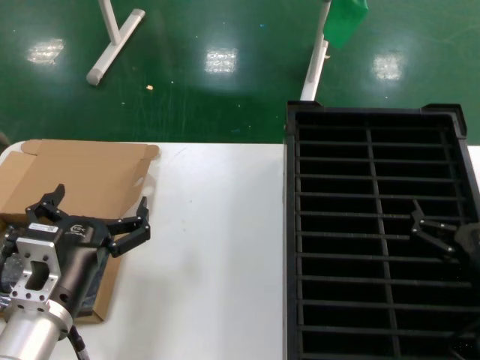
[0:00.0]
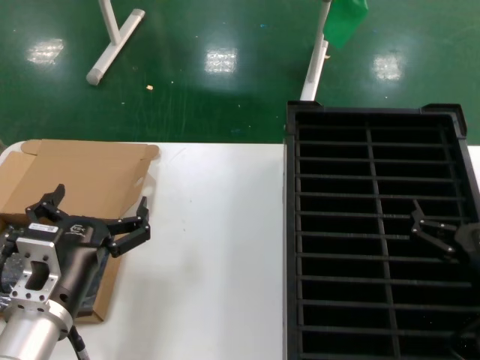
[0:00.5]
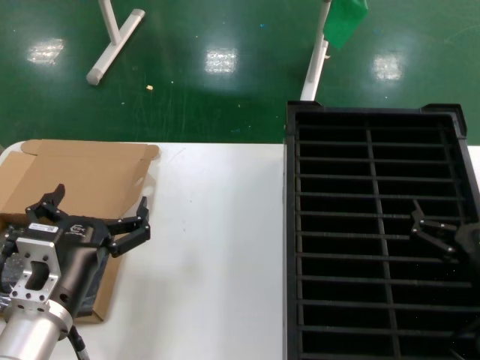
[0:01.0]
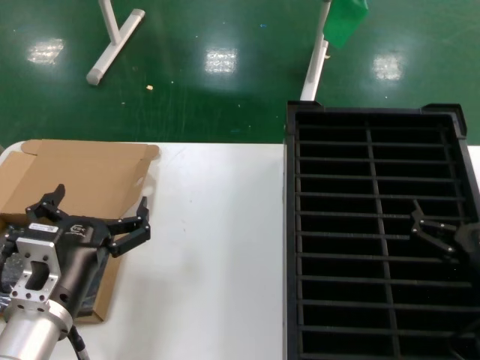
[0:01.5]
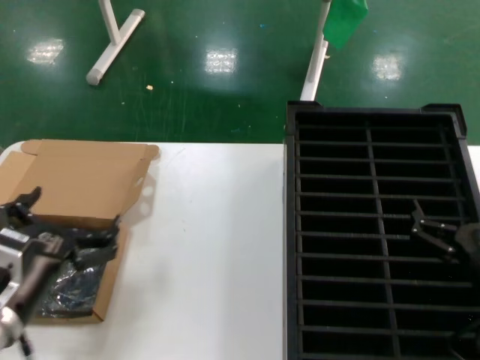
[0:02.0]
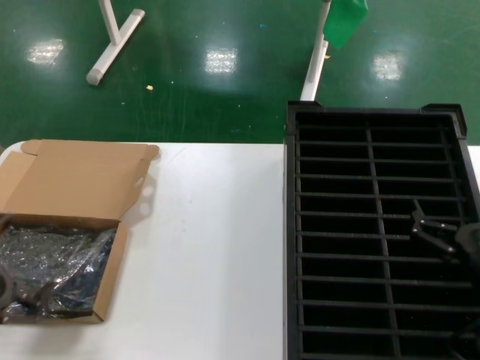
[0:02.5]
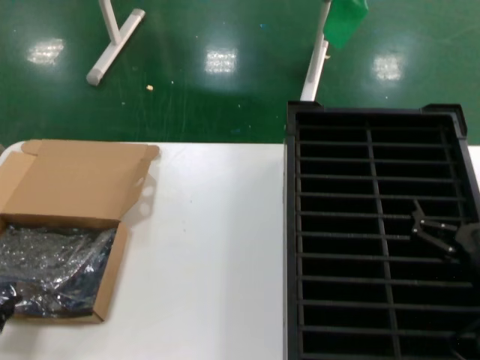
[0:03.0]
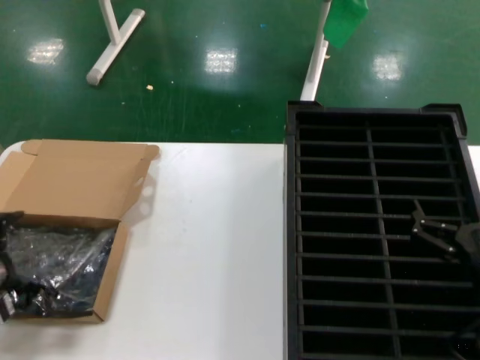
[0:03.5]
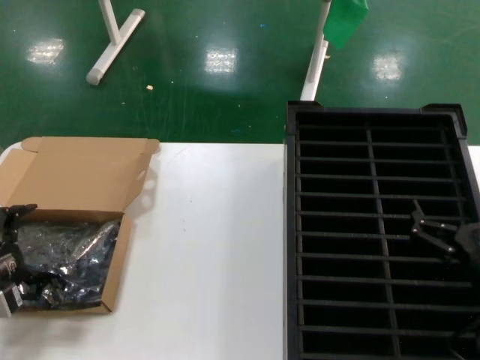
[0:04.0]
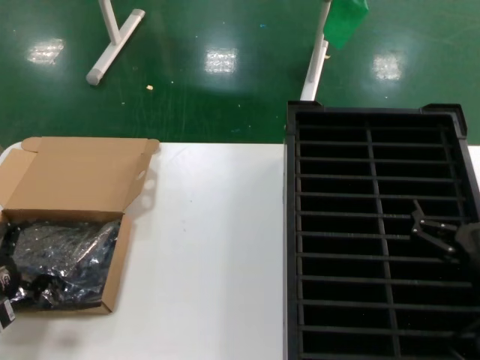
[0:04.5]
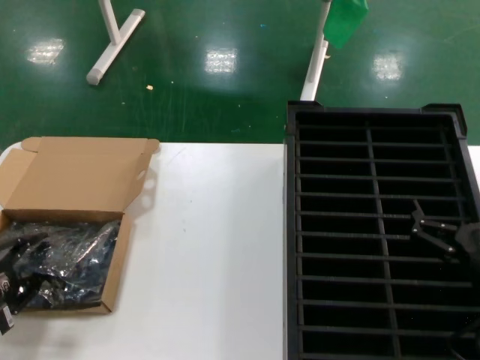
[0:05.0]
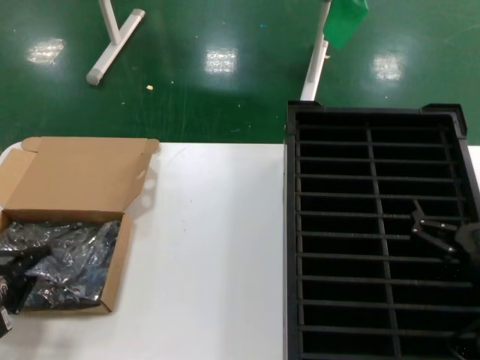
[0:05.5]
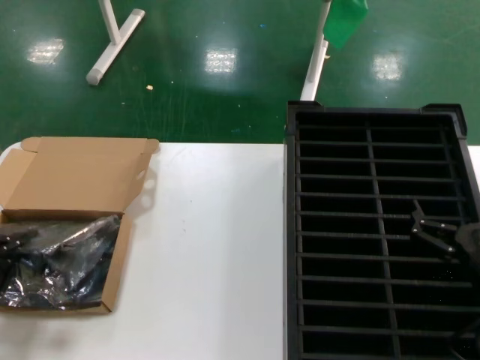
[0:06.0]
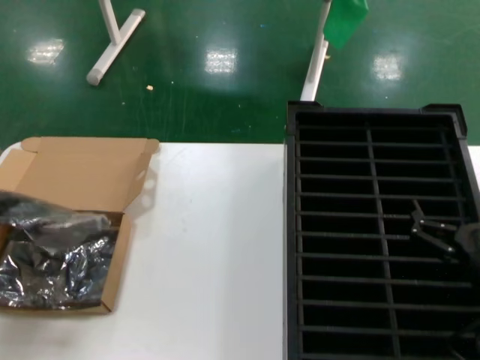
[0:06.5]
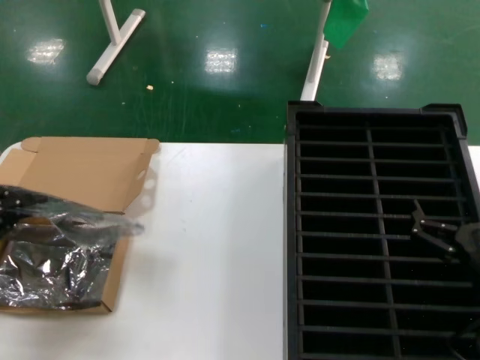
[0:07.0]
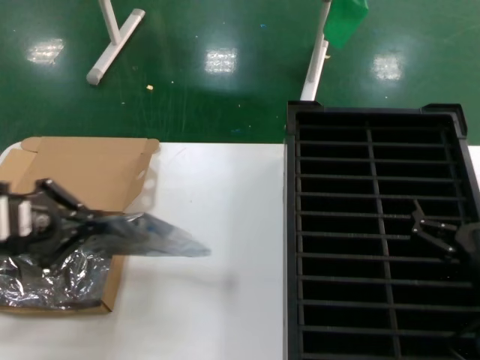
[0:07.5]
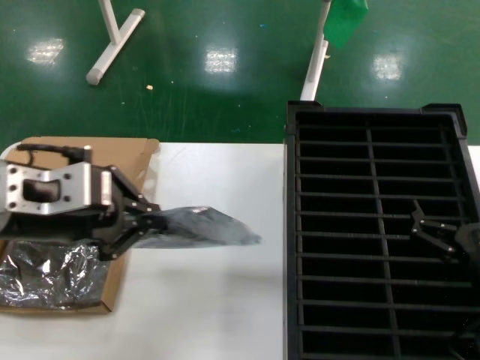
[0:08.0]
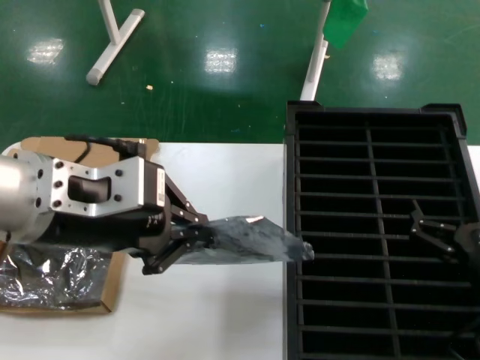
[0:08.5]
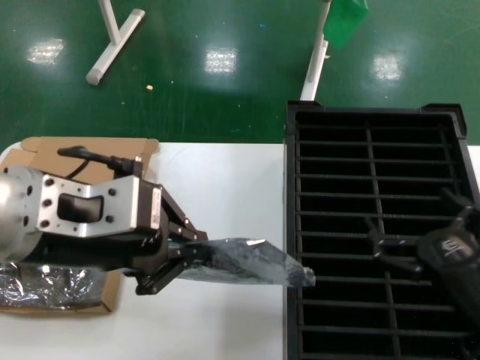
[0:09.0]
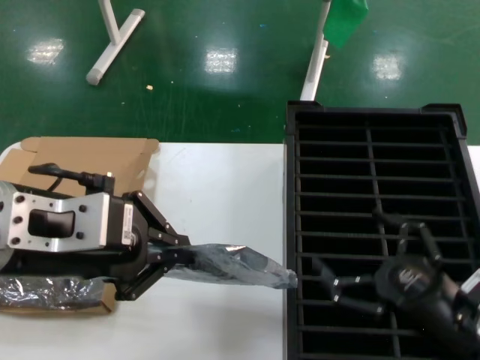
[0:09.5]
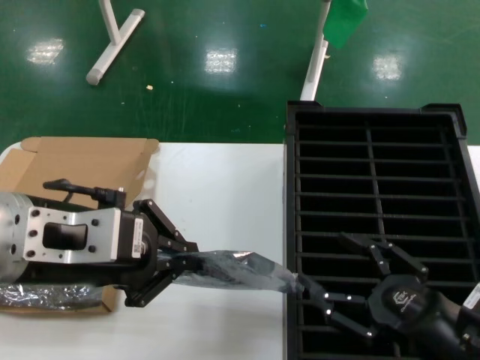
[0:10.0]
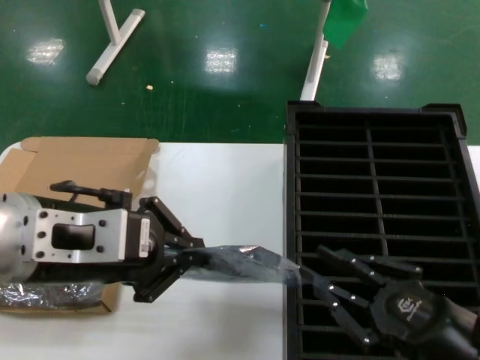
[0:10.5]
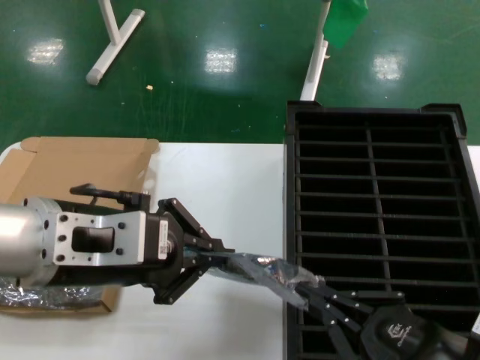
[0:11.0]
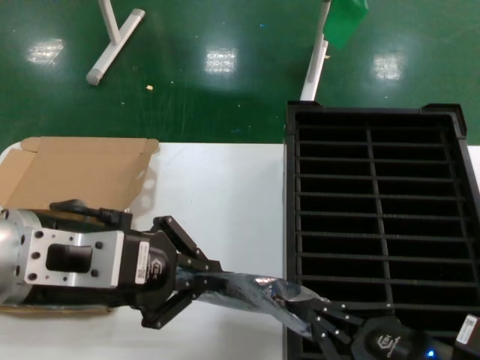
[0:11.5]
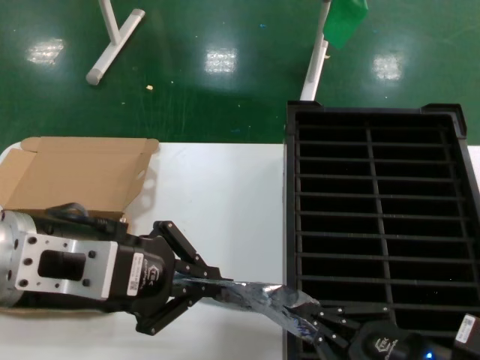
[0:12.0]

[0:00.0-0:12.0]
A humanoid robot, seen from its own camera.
Task of the whole recording: take out graphics card from box remove packaging put into black container.
Step, 0:00.0 to 0:05.0: Grasp the bag.
Step, 0:05.5 to 0:09.0: Lift the bag.
0:00.0 to 0:02.0: The left hand is displaced to the left by roughly 5 cm.
0:02.0 to 0:04.0: The left hand is displaced to the left and forward by some 15 cm.
0:04.0 to 0:06.0: There are only small adjustments of the hands.
0:06.0 to 0:08.0: The left hand moves upward and to the right, about 30 cm.
0:08.0 to 0:10.0: The left hand moves roughly 5 cm.
0:10.0 to 0:12.0: The hands stay close to where they were, moving slightly.

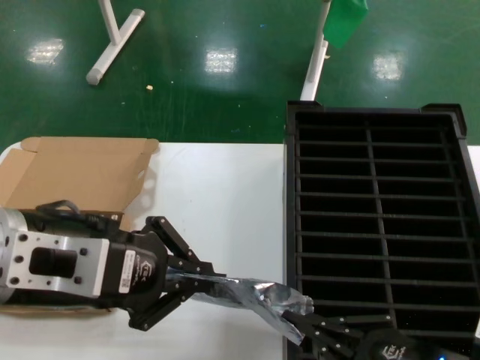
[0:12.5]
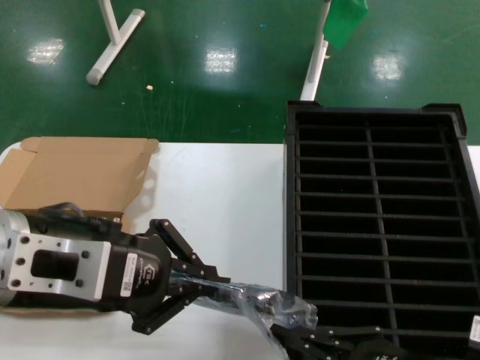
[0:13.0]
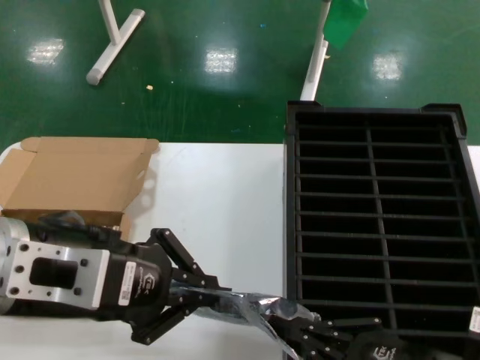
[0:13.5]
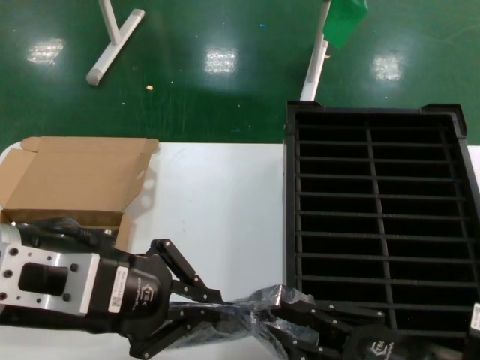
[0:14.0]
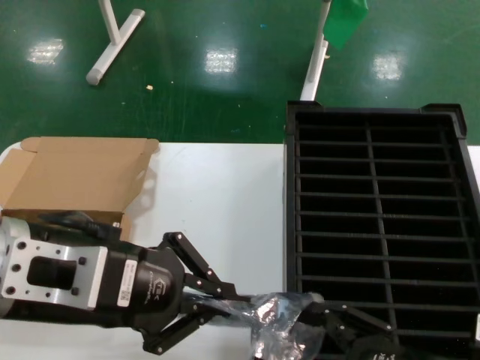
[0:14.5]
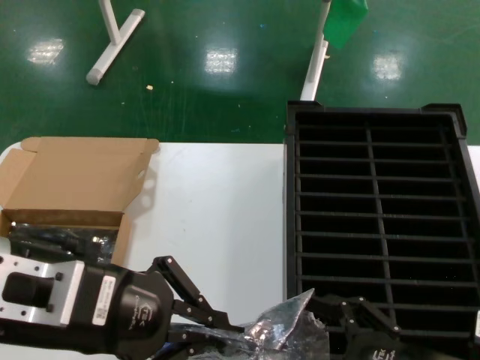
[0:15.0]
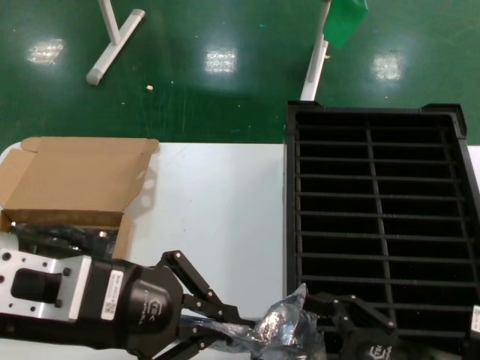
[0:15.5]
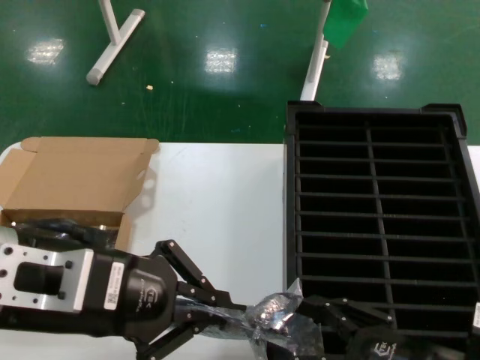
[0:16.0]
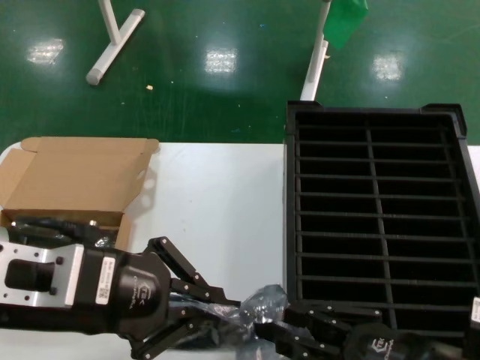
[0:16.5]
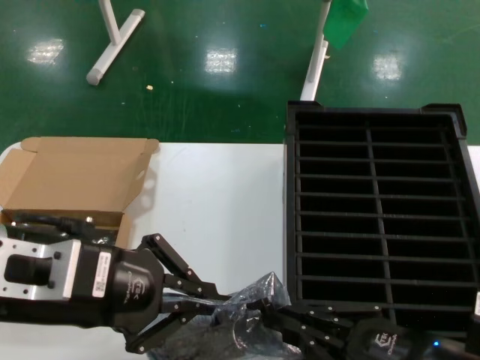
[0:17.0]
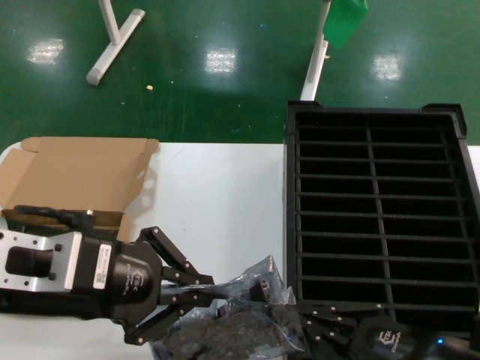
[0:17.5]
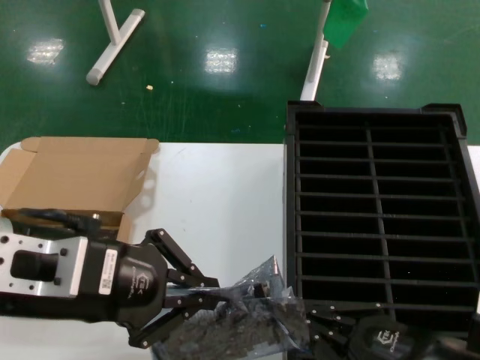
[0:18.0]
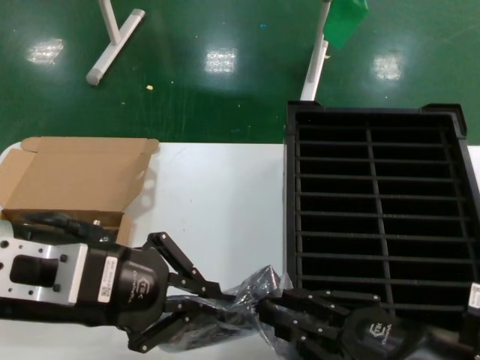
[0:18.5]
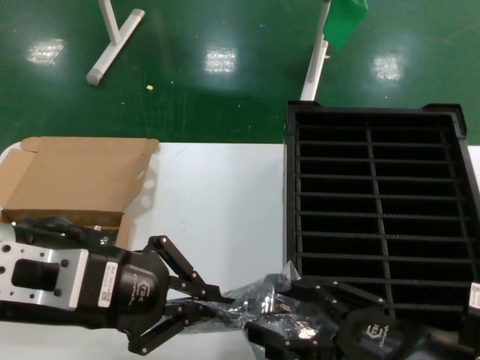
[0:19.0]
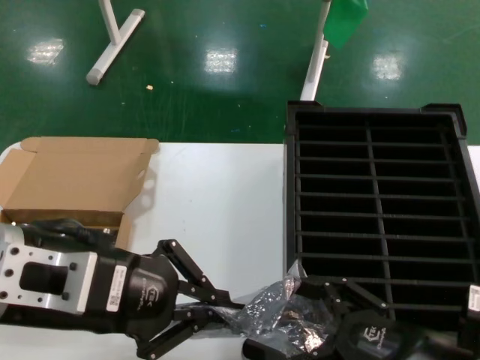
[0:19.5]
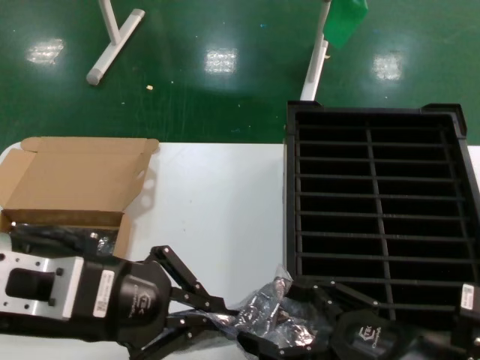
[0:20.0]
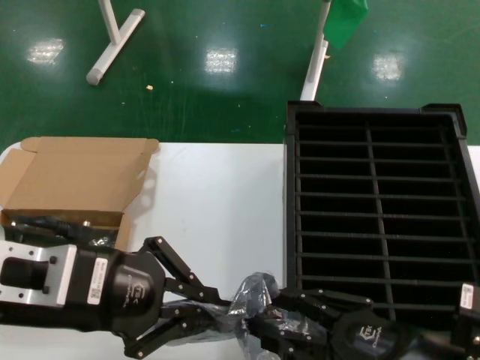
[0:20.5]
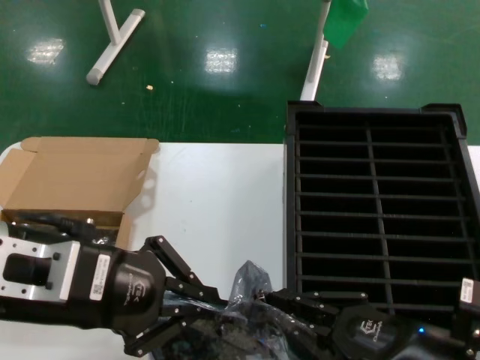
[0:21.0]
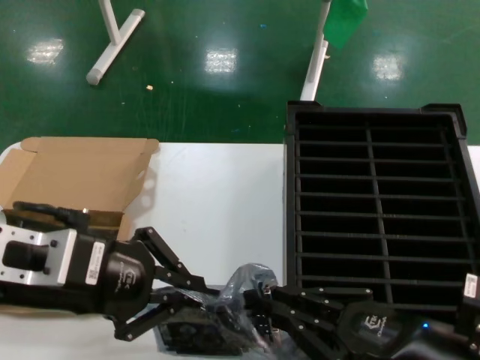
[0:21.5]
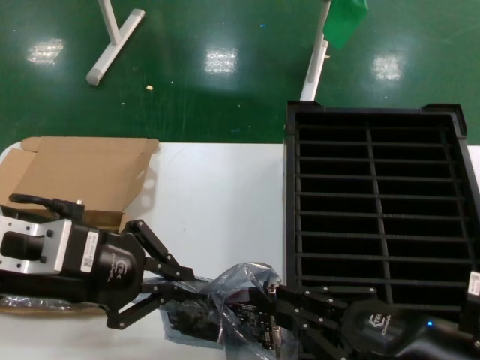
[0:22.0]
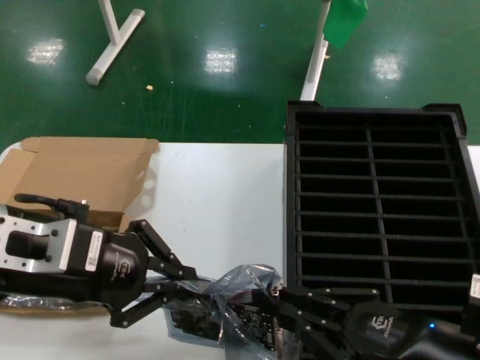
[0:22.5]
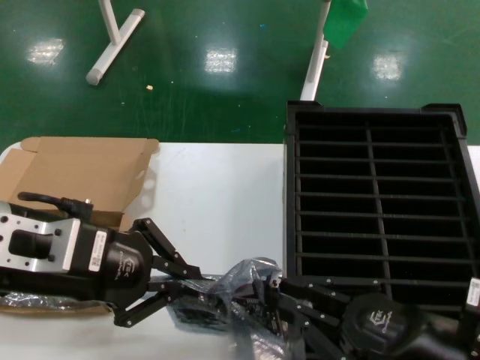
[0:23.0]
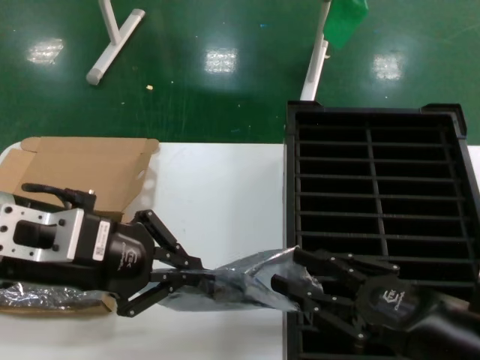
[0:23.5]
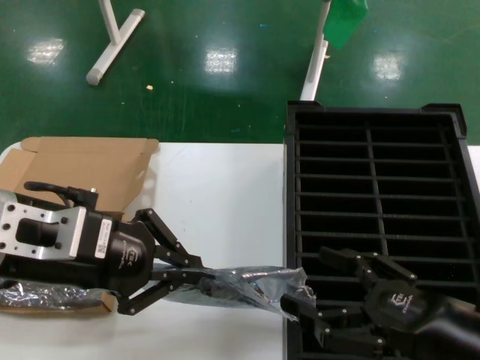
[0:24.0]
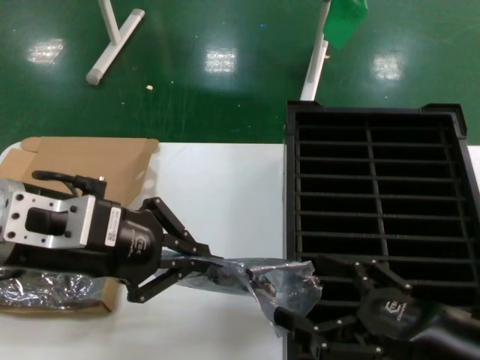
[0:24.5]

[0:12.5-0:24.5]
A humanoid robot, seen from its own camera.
Task of the whole recording: take out graphics card from box remove packaging put into black container.
0:12.5 to 0:18.5: There are only small adjustments of the hands.
0:18.5 to 0:20.5: Neither hand changes place.
0:20.5 to 0:22.5: The hands make only small movements.

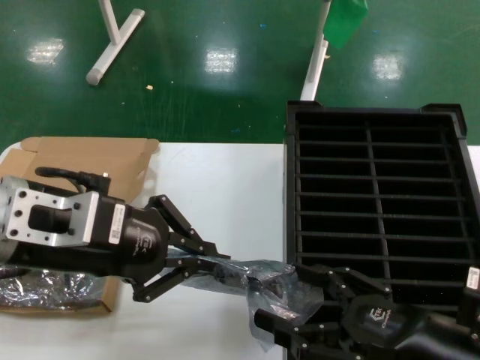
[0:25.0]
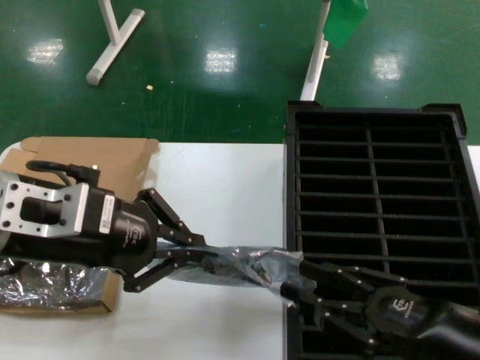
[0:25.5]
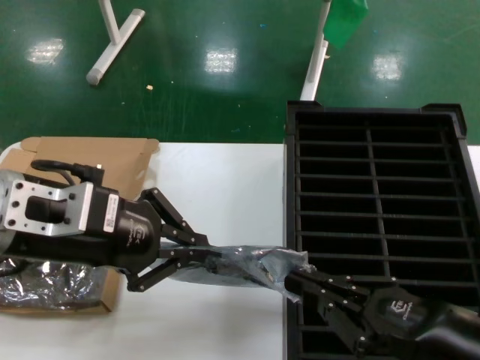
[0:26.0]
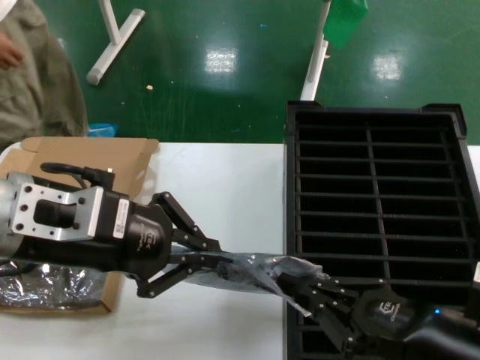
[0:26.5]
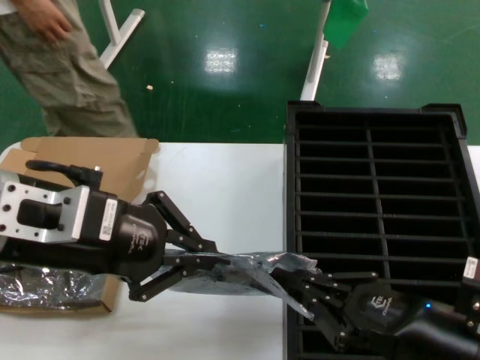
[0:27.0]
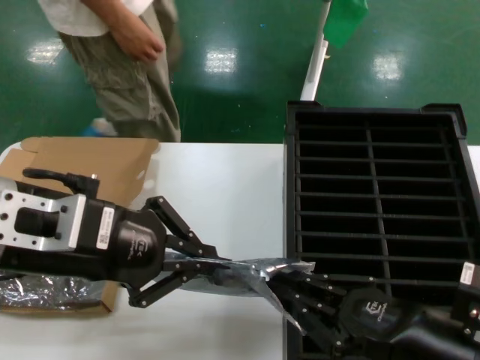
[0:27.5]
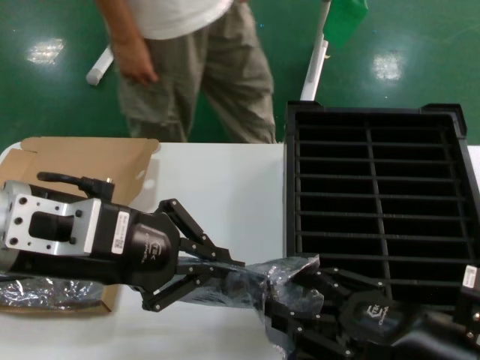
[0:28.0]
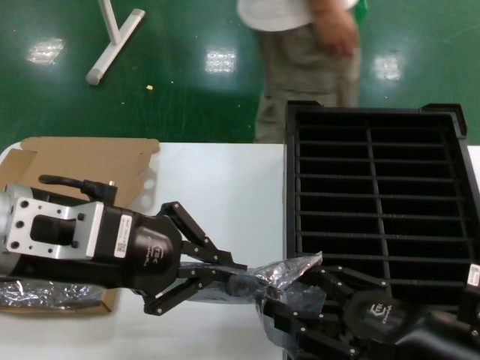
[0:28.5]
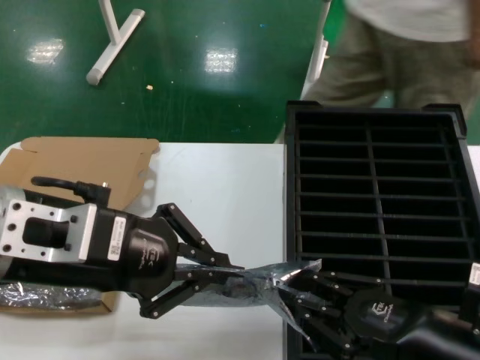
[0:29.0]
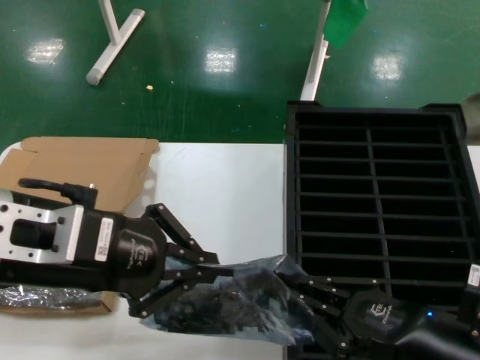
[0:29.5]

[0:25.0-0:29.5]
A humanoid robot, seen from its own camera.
Task of the whole recording: take out graphics card from box remove packaging put into black container.
0:25.0 to 0:27.0: The hands make only small movements.
